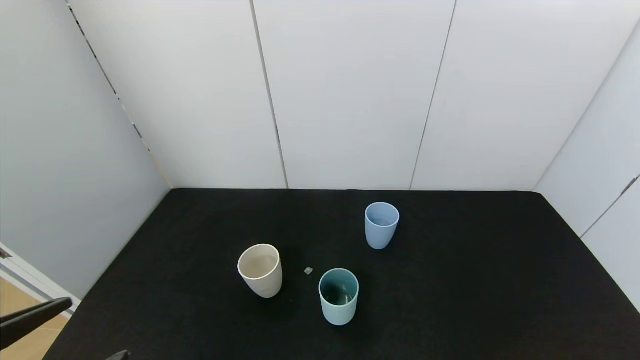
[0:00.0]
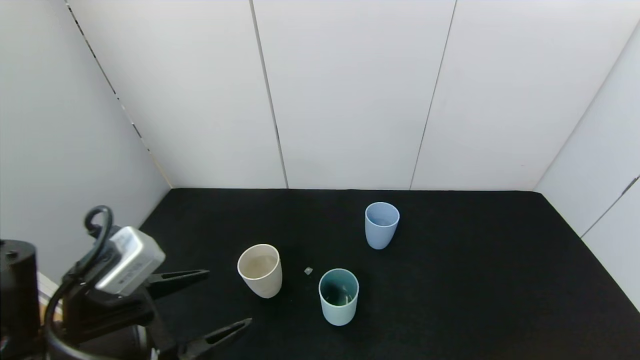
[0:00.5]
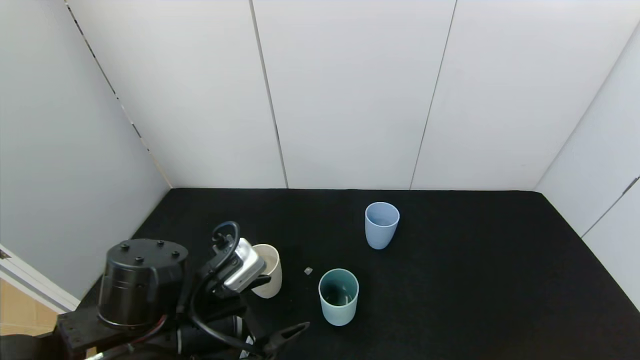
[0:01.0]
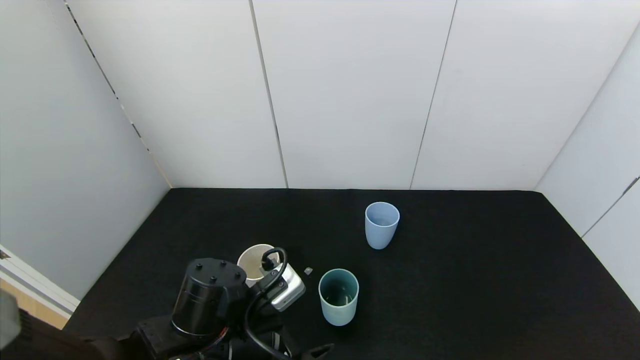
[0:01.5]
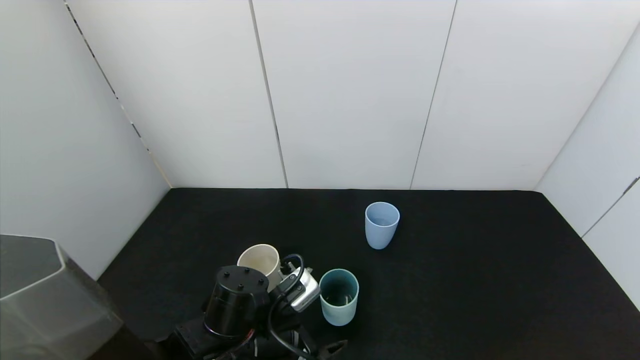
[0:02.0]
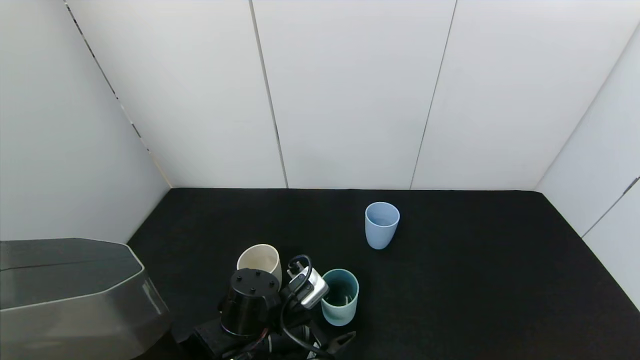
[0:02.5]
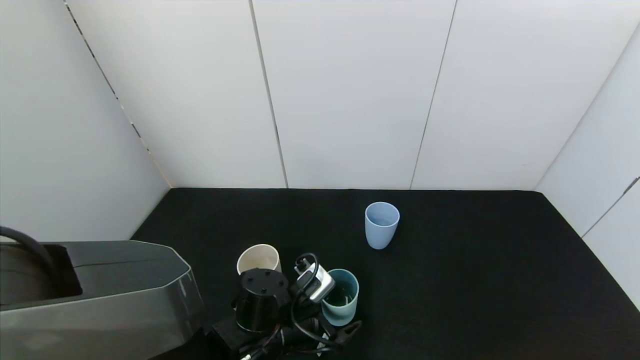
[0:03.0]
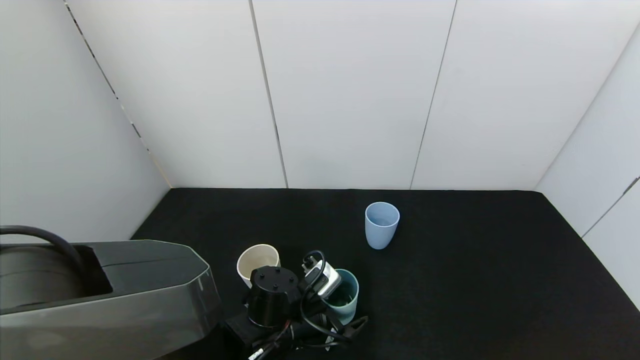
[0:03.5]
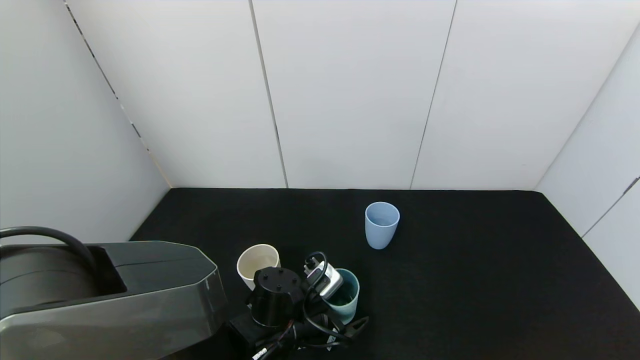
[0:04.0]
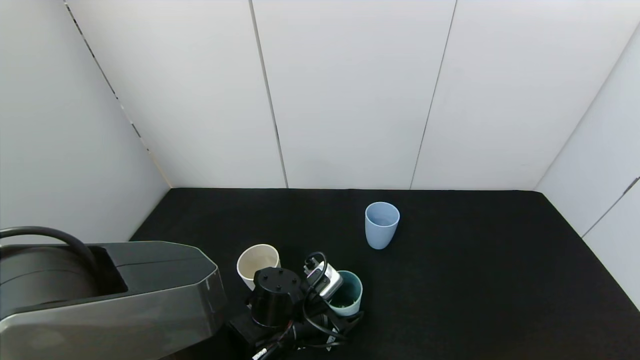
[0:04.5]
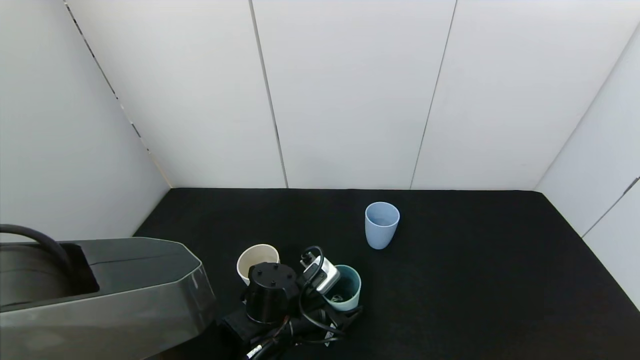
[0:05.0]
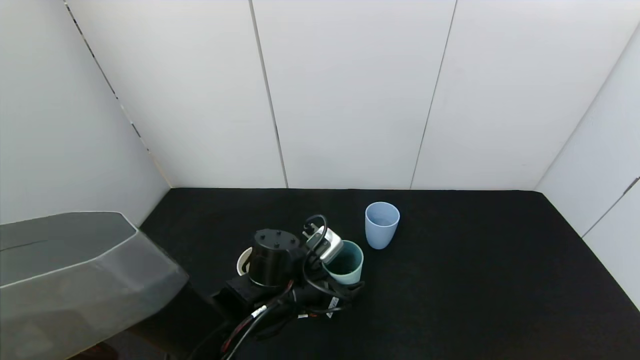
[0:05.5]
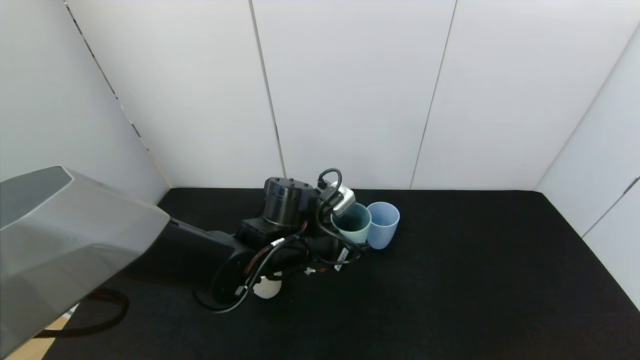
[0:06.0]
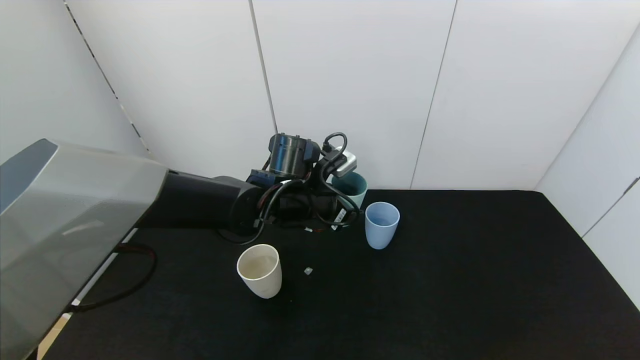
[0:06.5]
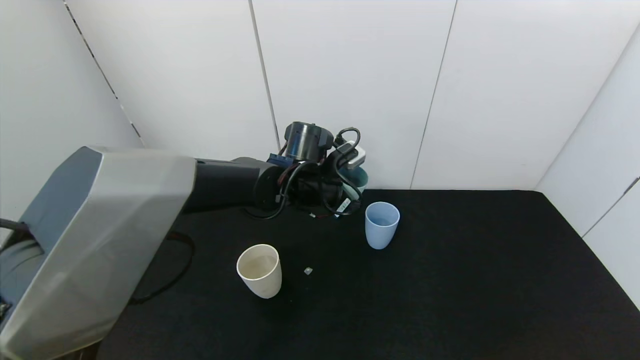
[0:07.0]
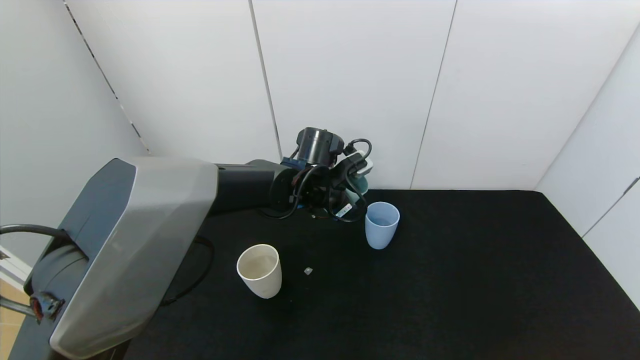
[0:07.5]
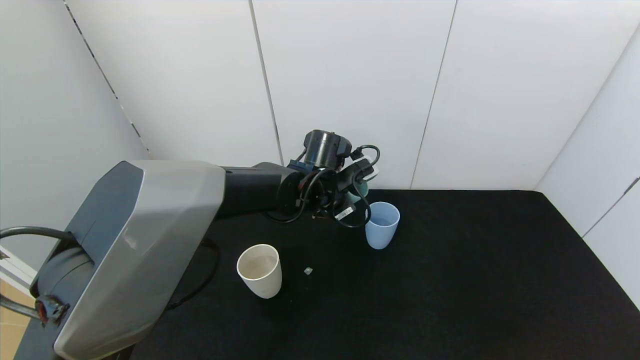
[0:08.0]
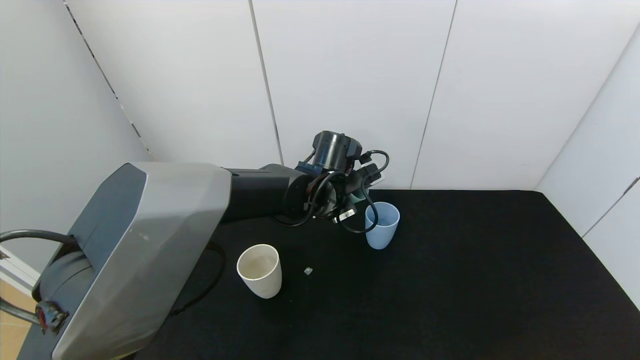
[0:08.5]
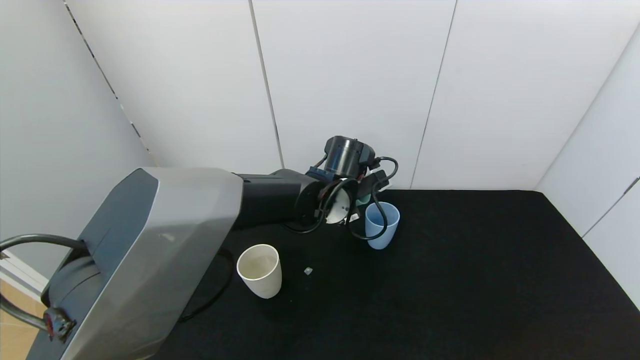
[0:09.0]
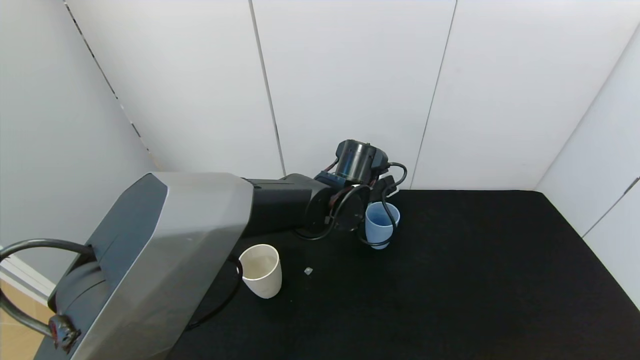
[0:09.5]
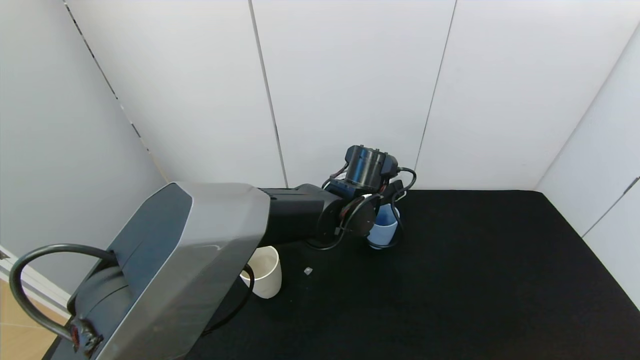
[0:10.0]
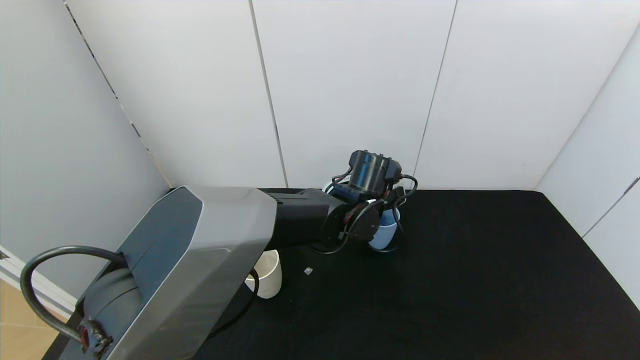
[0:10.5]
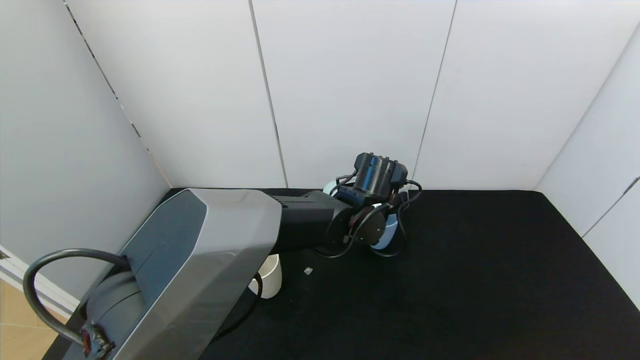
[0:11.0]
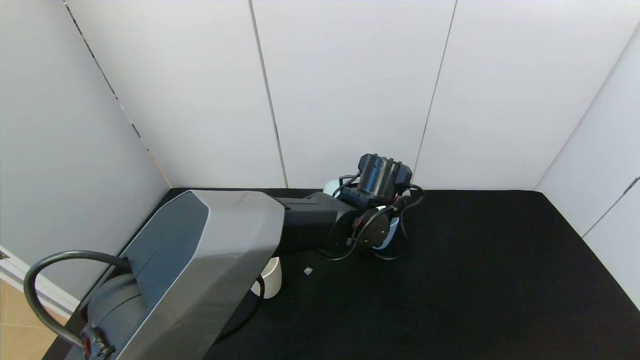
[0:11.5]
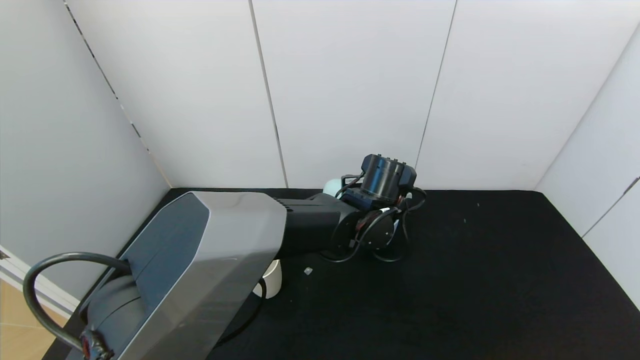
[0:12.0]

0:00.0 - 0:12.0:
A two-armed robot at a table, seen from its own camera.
Task of the whole recording: use the gripper to pour the water into the other two cups on black table.
Step, 0:00.0 - 0:04.5: Grasp the green cup with the left gripper.
0:00.0 - 0:02.0: The left gripper is displaced forward, to the right and downward by approximately 25 cm.
0:02.0 - 0:04.0: The left gripper changes place by some 5 cm.
0:04.0 - 0:06.0: The left gripper is displaced upward and forward by some 15 cm, and closes up.
0:06.0 - 0:08.0: The left gripper moves forward, some 10 cm.
0:08.0 - 0:10.0: The left gripper moves to the right, roughly 5 cm.
0:10.0 - 0:12.0: There are only small adjustments of the grippers.

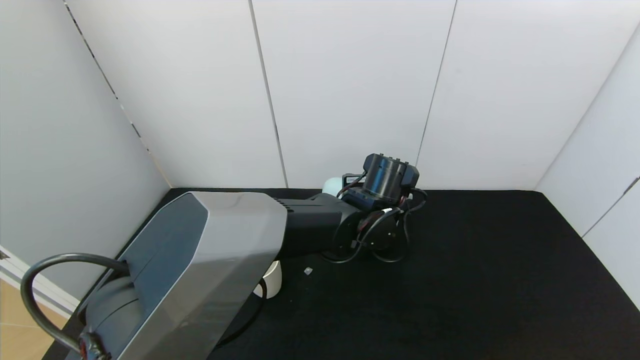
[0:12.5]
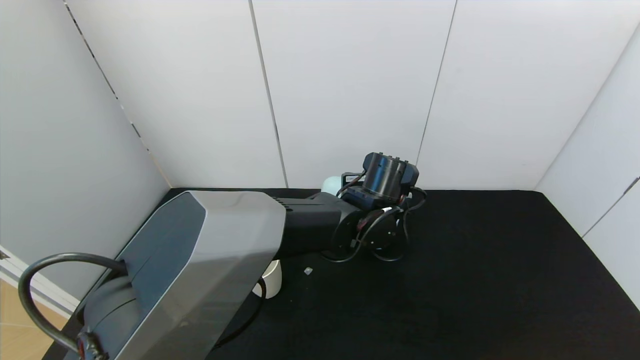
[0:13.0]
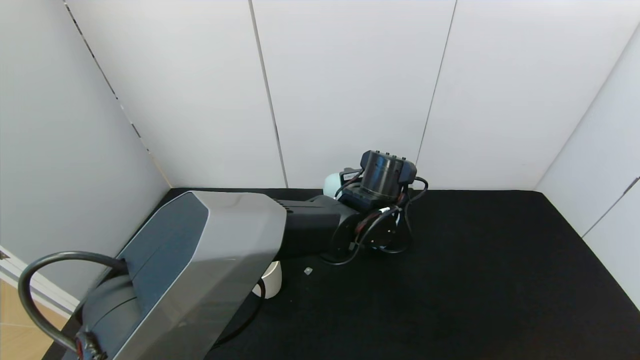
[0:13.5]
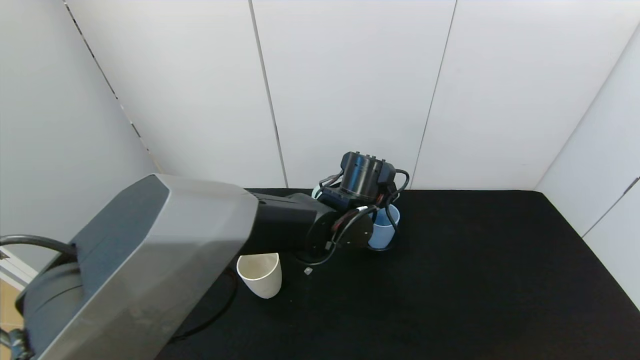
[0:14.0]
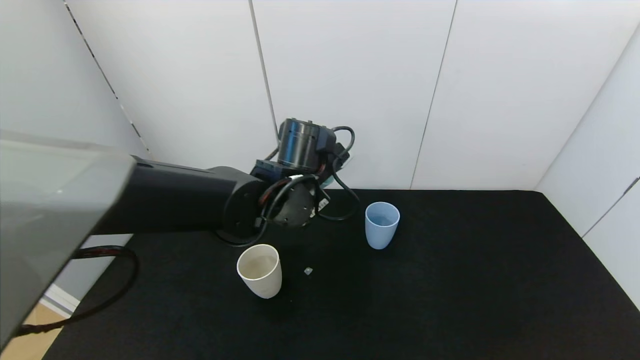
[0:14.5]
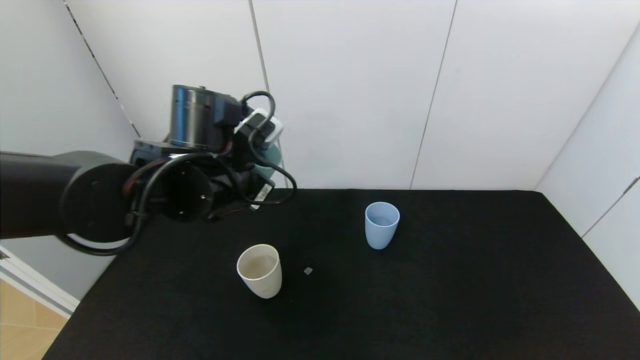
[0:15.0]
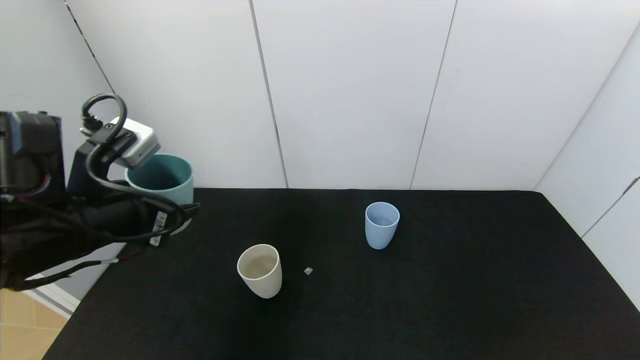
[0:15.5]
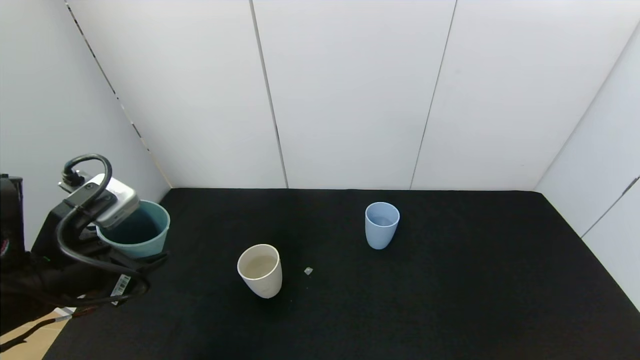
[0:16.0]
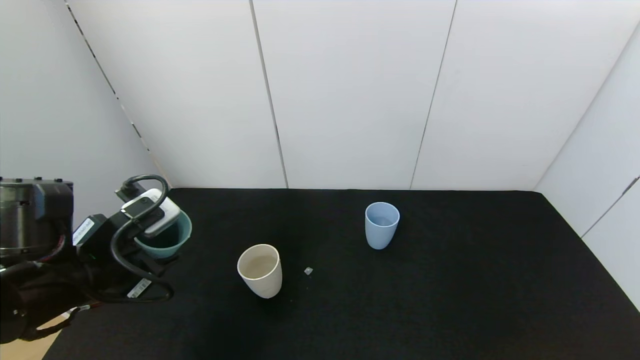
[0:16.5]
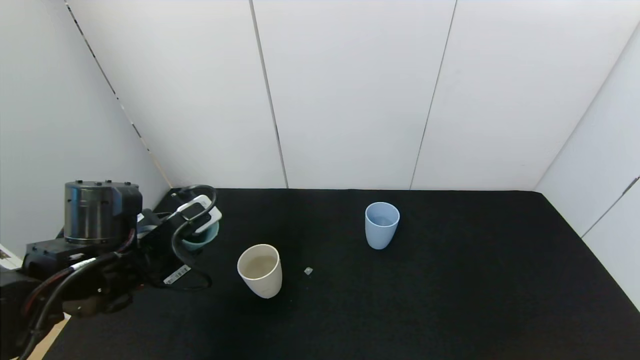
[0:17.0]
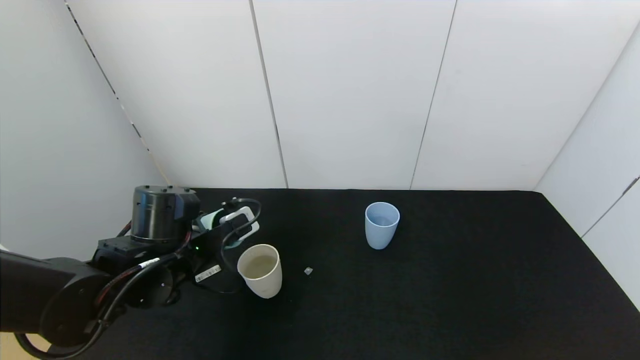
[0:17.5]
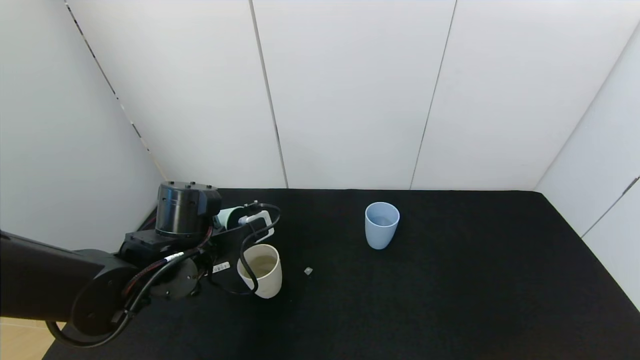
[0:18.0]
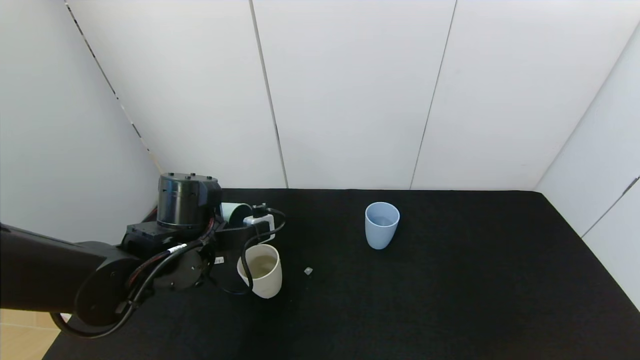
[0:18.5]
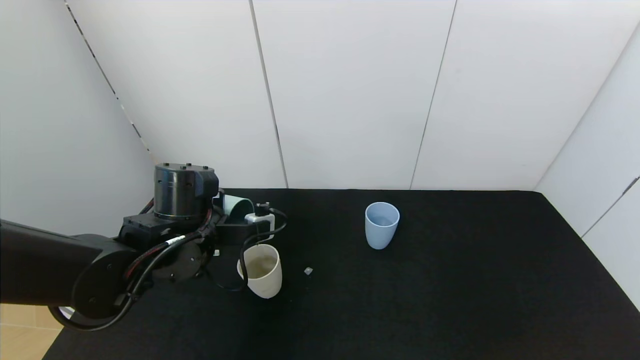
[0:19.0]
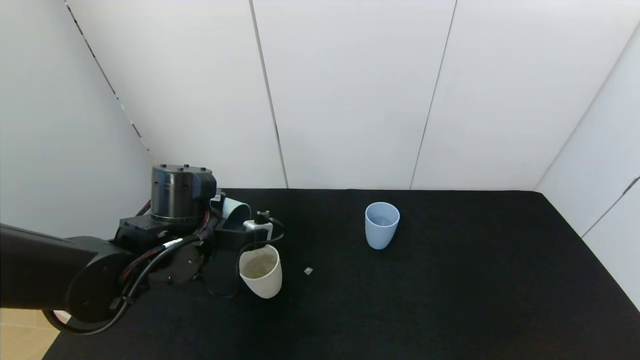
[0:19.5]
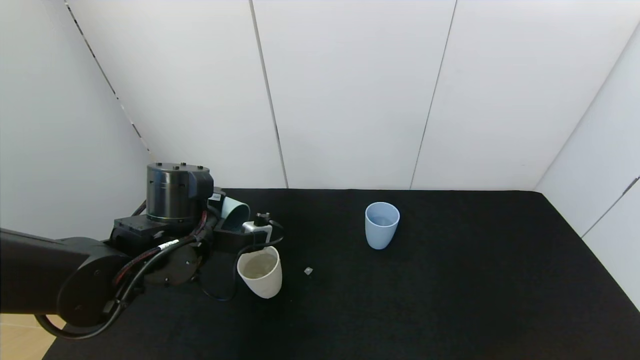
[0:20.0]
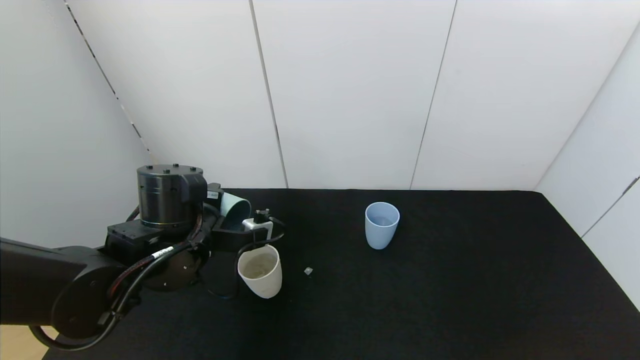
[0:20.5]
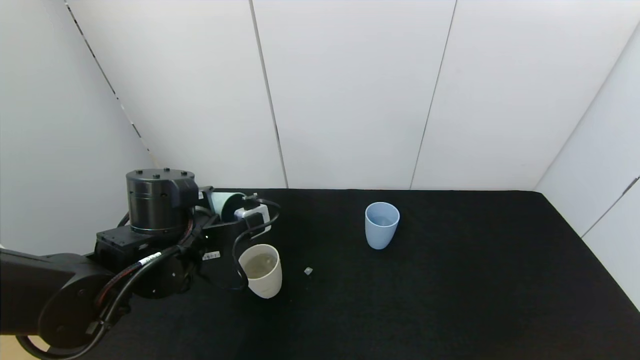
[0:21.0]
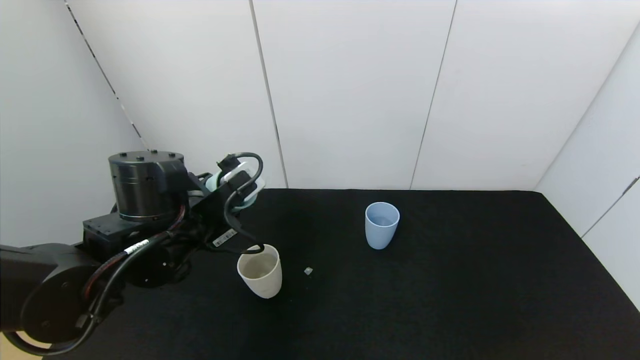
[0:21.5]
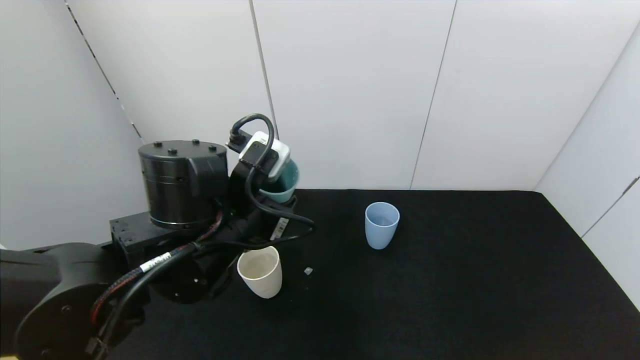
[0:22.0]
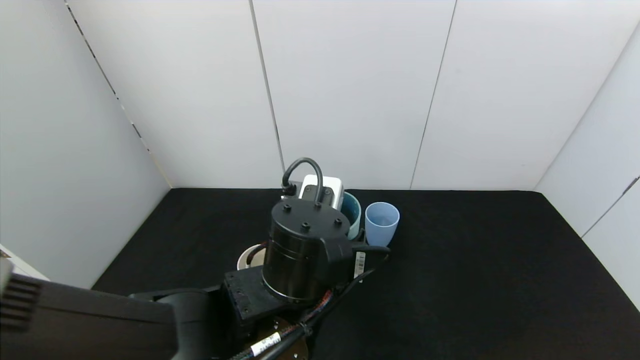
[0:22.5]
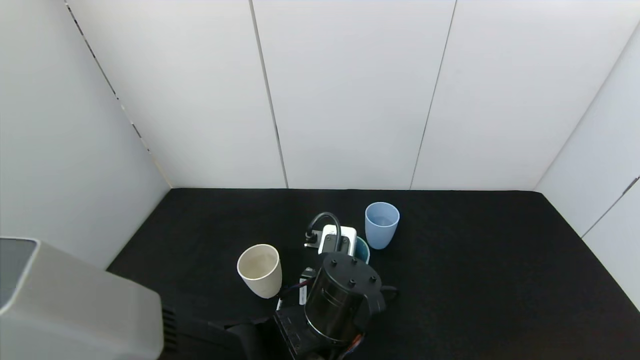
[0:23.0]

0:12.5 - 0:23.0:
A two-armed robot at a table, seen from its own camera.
Task of the whole recording: use the gripper to pour the water into the other two cups on black table.
Step, 0:14.5 - 0:21.0: Pour water from green cup to white cup with the left gripper.
0:12.5 - 0:14.5: The left gripper goes some 15 cm to the left and upward.
0:14.5 - 0:16.5: The left gripper moves to the left and backward, roughly 25 cm.
0:16.5 - 0:19.0: The left gripper shifts approximately 10 cm forward and to the right.
0:19.0 - 0:21.0: The grippers move only a little.
0:21.0 - 0:23.0: The left gripper goes some 20 cm to the right.
